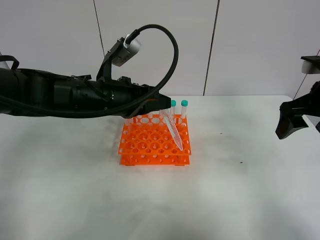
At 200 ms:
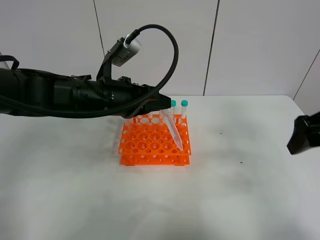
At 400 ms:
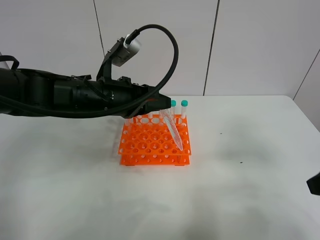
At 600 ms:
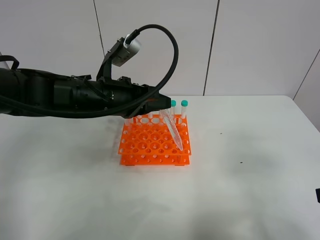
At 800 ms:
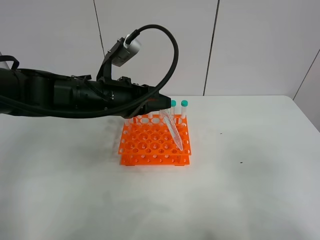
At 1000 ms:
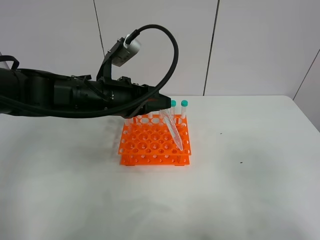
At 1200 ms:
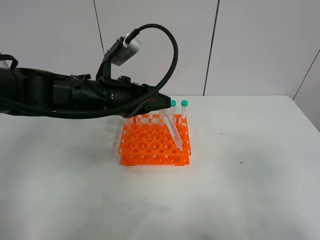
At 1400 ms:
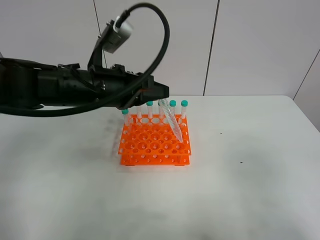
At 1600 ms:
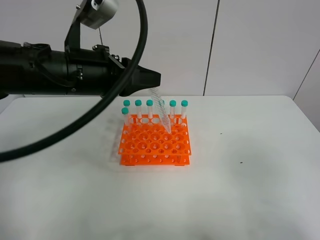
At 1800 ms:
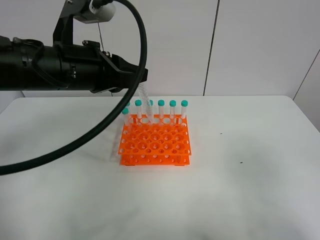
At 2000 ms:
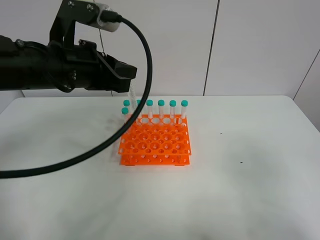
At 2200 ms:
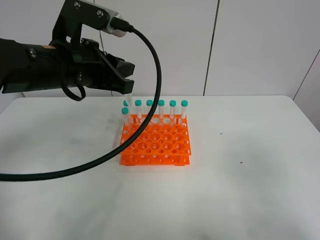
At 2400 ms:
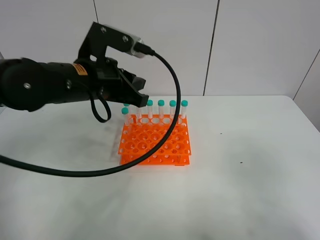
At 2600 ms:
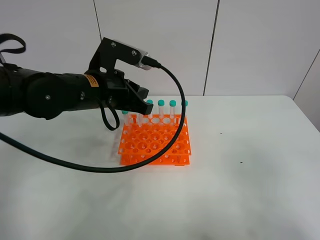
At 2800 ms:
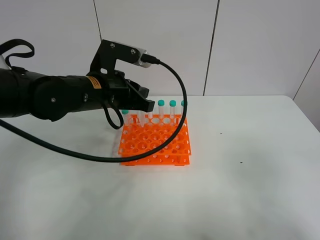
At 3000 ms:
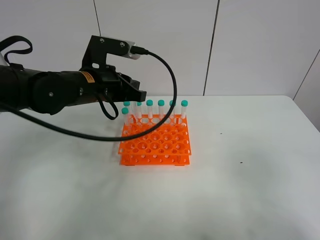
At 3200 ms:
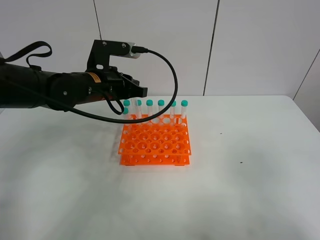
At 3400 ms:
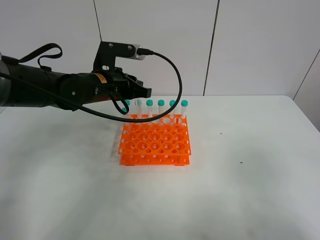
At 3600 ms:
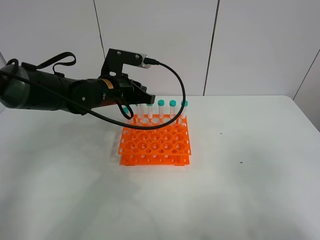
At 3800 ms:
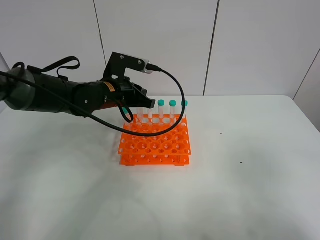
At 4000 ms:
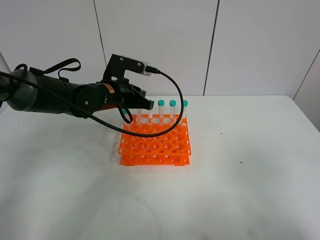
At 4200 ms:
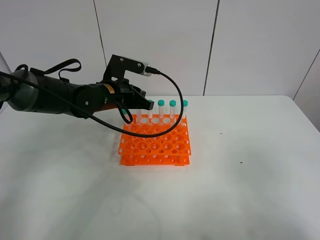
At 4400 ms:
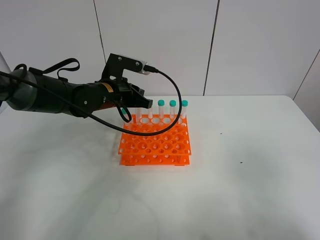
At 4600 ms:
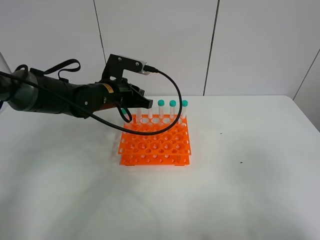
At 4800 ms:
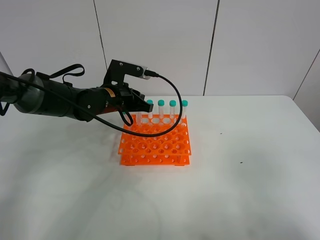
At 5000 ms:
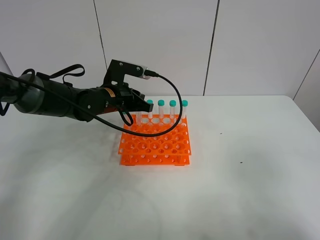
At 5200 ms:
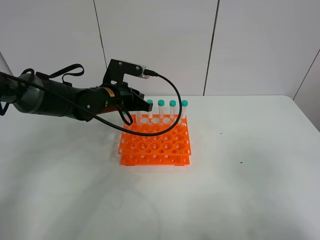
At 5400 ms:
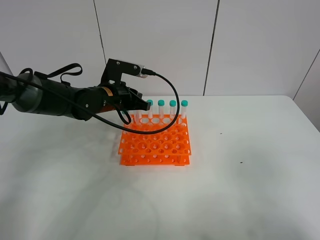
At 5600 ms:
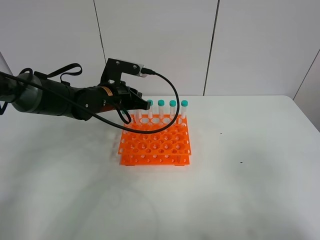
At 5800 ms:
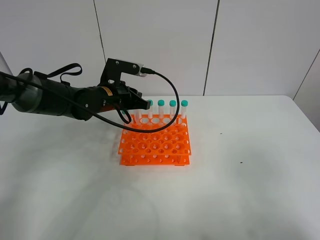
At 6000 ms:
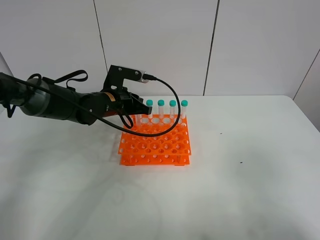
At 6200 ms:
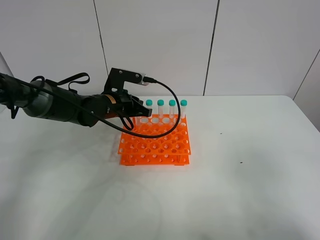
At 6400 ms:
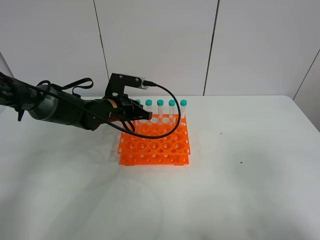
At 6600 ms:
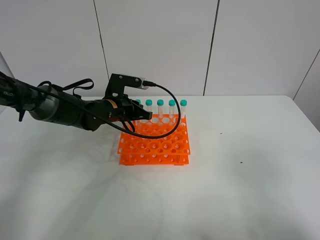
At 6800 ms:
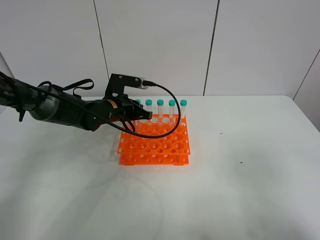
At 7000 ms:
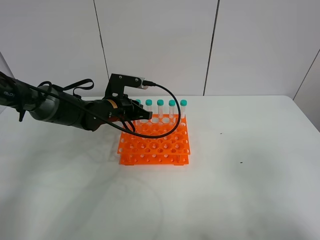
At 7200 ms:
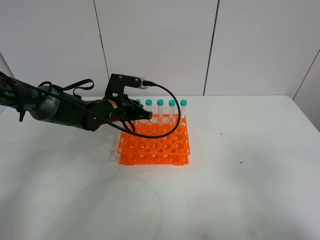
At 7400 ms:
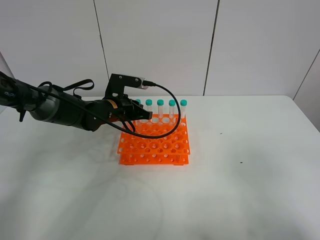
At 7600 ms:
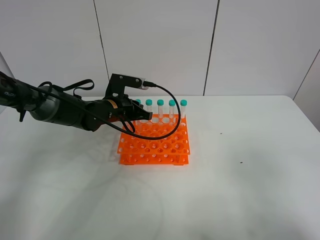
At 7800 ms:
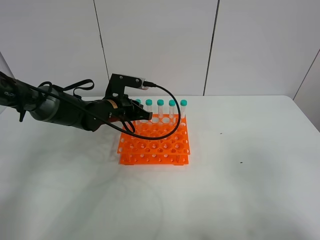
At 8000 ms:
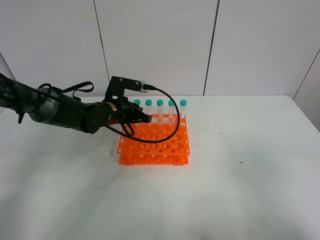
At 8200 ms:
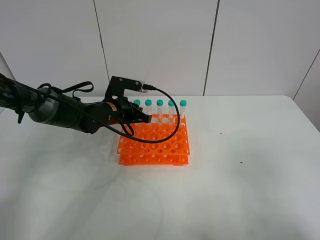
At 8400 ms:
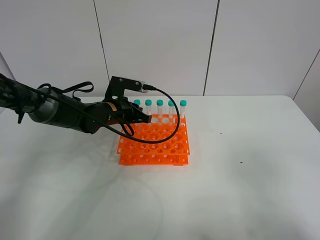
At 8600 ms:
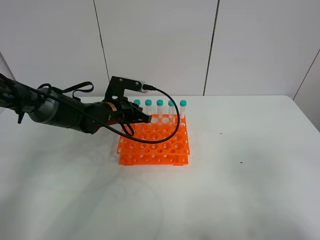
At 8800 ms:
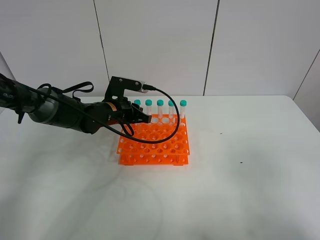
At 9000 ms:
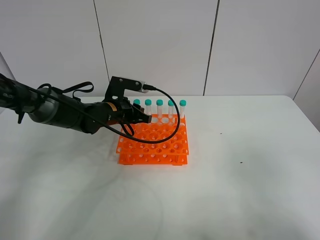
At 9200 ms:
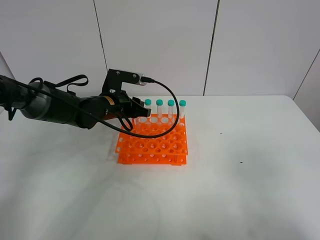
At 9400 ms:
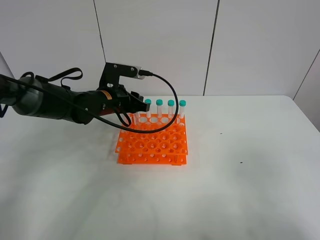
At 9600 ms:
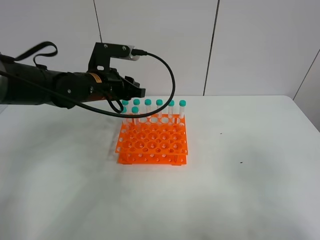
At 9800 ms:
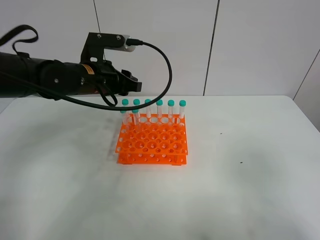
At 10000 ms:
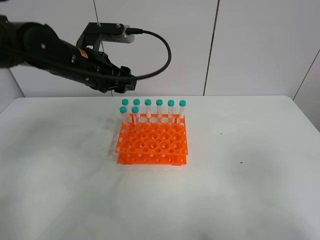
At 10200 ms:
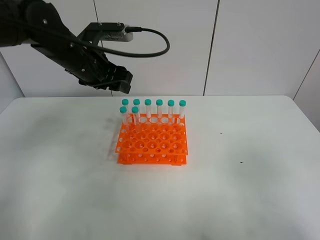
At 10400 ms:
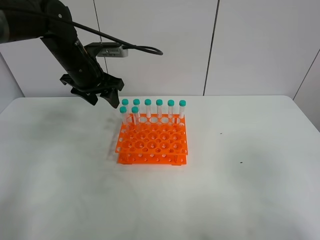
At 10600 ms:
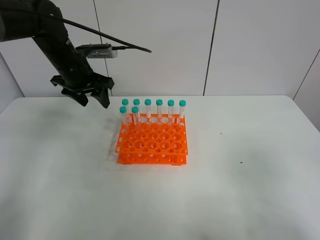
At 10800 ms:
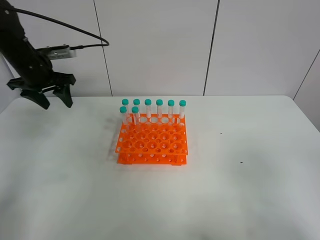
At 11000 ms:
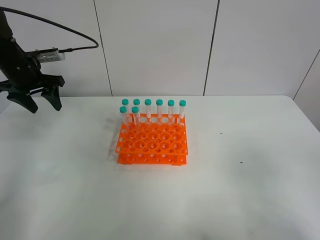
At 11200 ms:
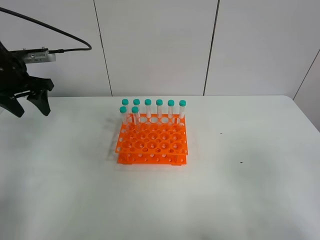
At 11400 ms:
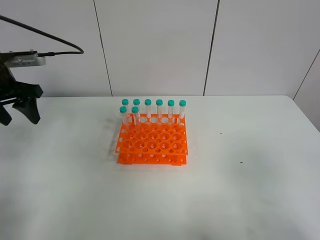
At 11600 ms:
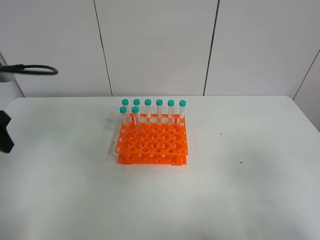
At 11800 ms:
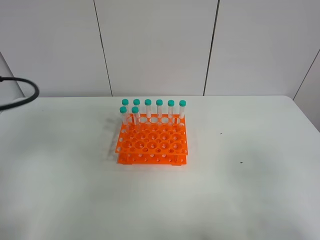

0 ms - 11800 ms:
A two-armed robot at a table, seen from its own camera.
Task of the whole recording: Put the test tube on the table back onto the test tube rack.
Step, 0 ms - 9200 ms: Place the test tube on the test tube rack with the left gripper.
0 ms - 1400 ms: The right gripper is displaced backward by about 25 cm.
3000 ms - 4400 ms: The left gripper goes some 5 cm downward.
4400 ms - 7400 ms: The grippers stay close to where they were, moving slightly.
7400 ms - 8800 ms: Neither gripper changes place.
8800 ms - 10400 ms: The left gripper shifts about 15 cm upward and to the left, and opens its fingers.
10400 ms - 11800 ms: The left gripper heads backward and to the left, covering approximately 30 cm.

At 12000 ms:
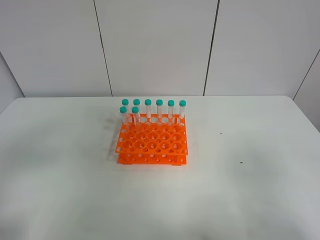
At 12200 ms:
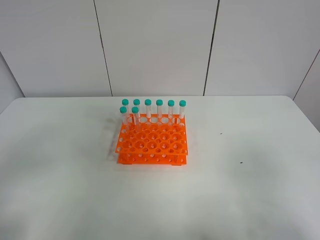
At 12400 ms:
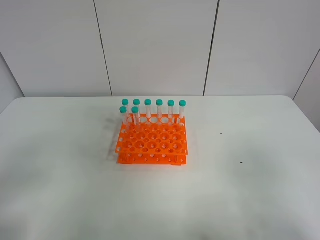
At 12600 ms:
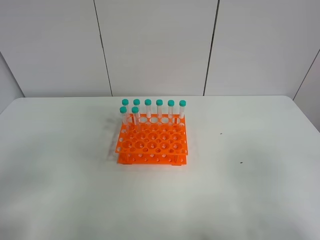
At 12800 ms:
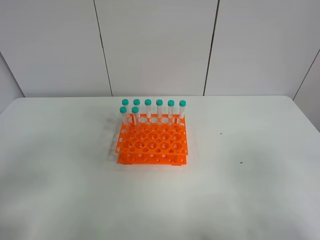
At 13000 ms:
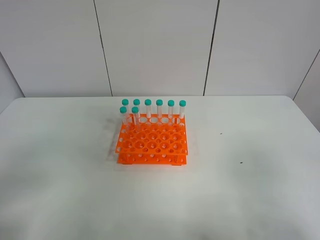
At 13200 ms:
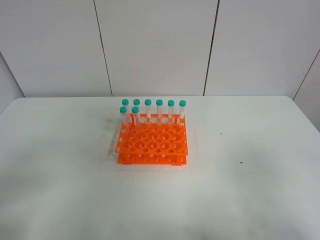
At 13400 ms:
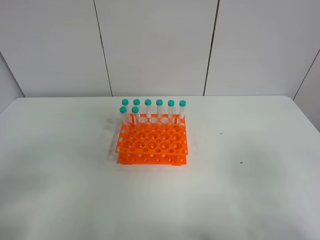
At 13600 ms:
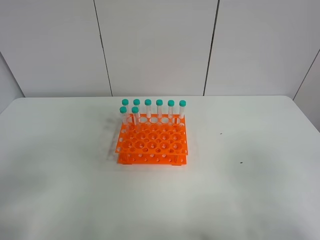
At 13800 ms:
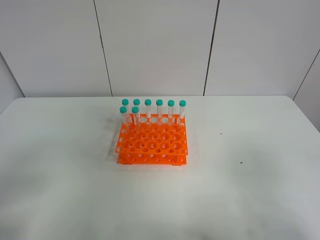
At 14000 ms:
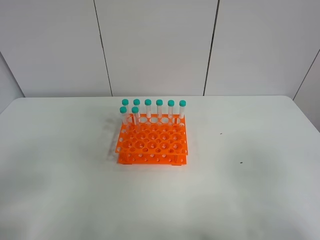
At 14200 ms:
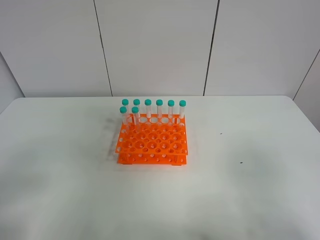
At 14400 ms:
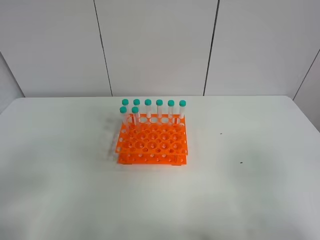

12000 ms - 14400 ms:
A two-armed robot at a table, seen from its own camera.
Task of the whole recording: Put the test tube on the table back onto the test tube rack.
12000 ms - 13200 ms: The left gripper is displaced backward by roughly 5 cm.
13200 ms - 14400 ms: Neither gripper changes place.
